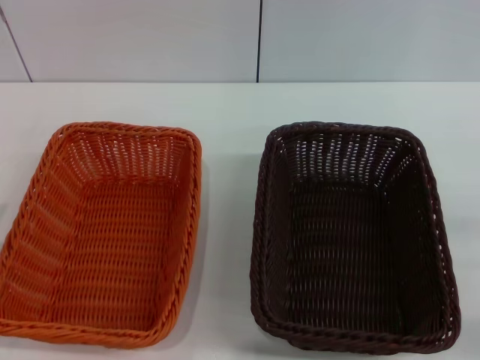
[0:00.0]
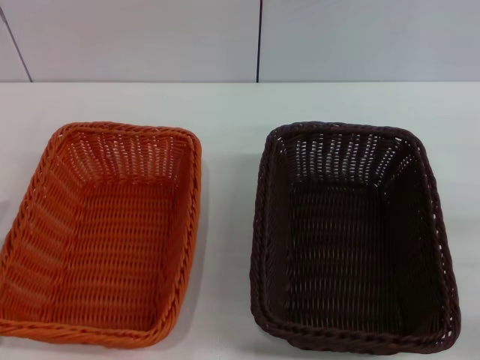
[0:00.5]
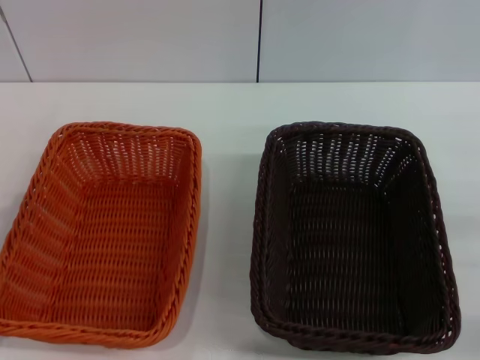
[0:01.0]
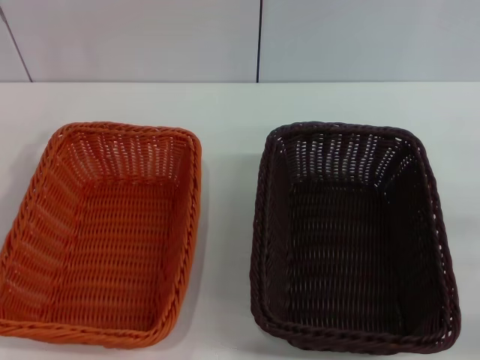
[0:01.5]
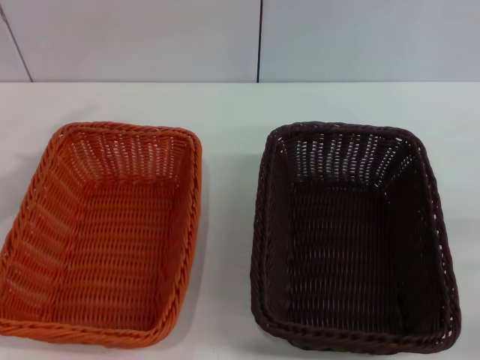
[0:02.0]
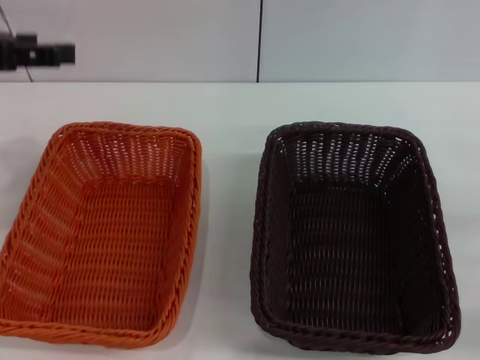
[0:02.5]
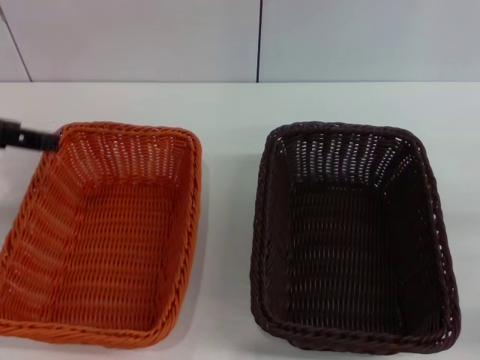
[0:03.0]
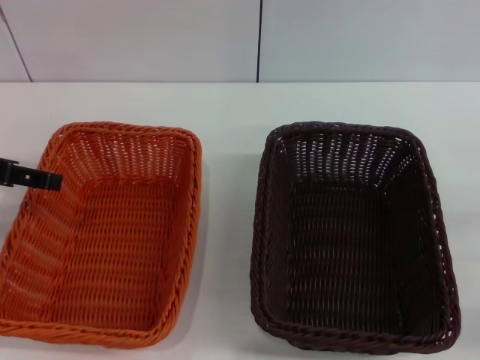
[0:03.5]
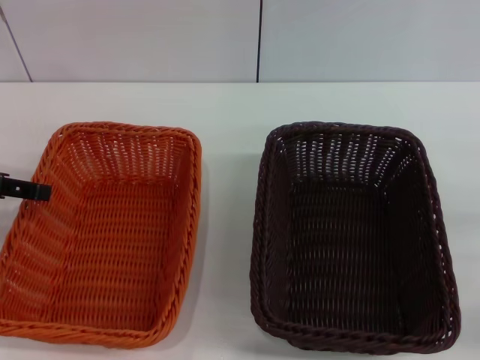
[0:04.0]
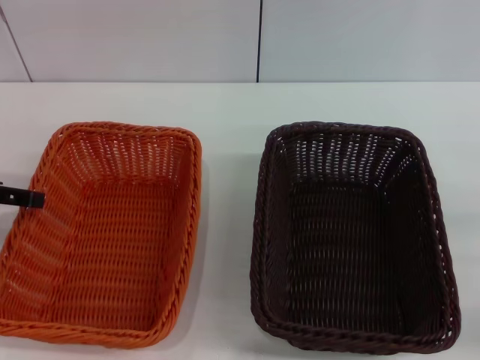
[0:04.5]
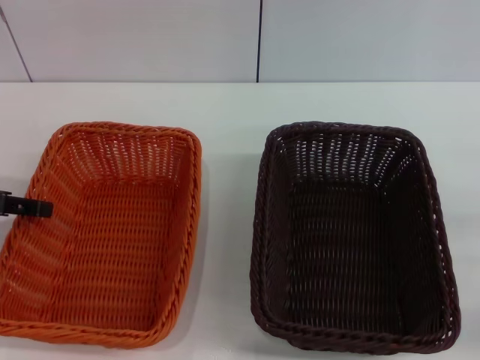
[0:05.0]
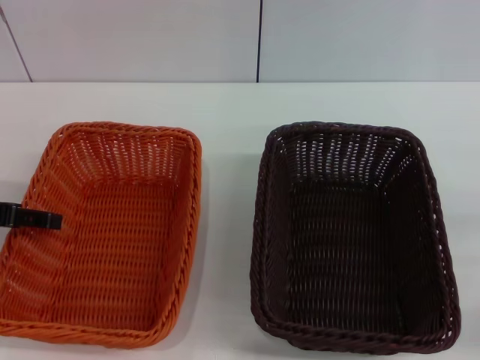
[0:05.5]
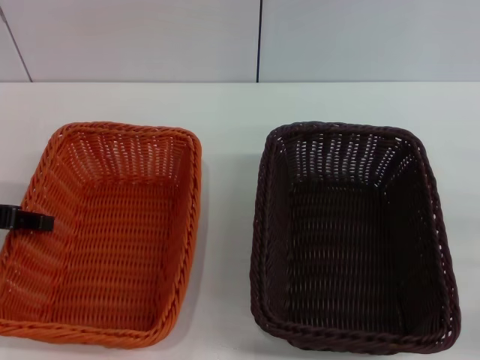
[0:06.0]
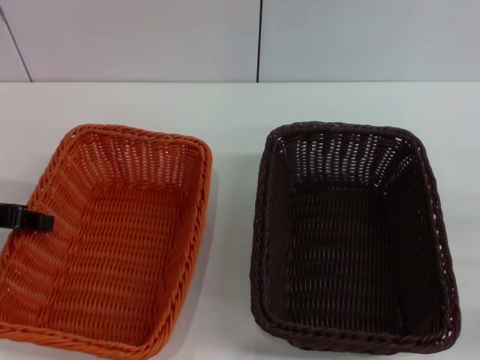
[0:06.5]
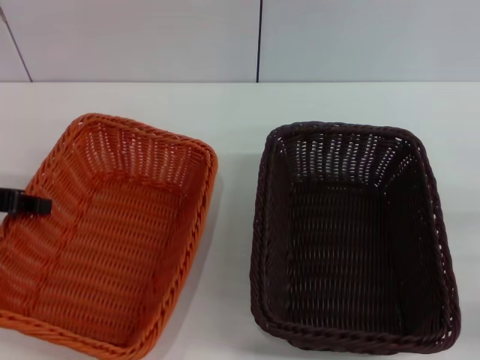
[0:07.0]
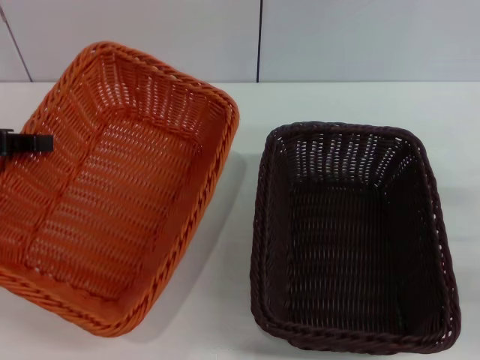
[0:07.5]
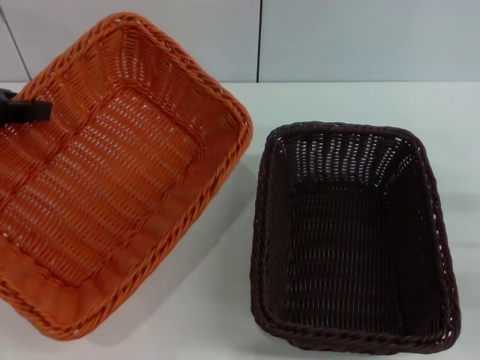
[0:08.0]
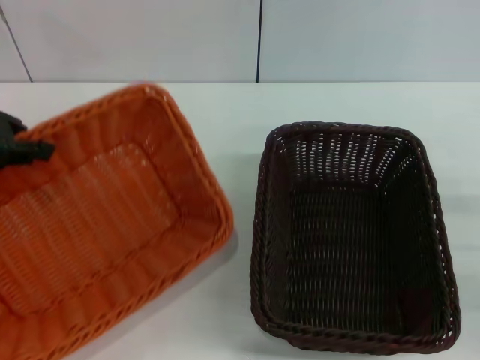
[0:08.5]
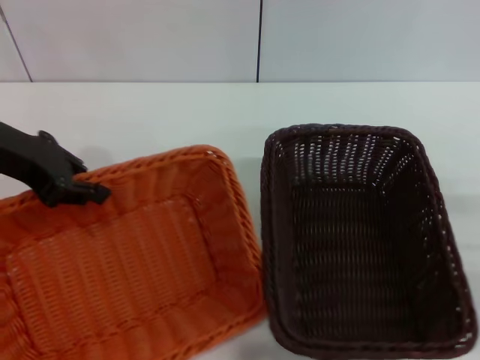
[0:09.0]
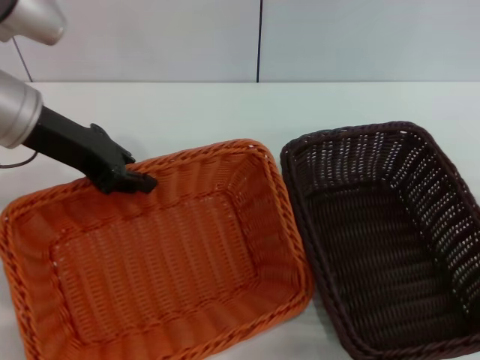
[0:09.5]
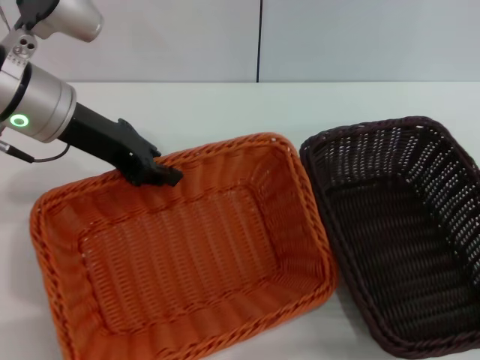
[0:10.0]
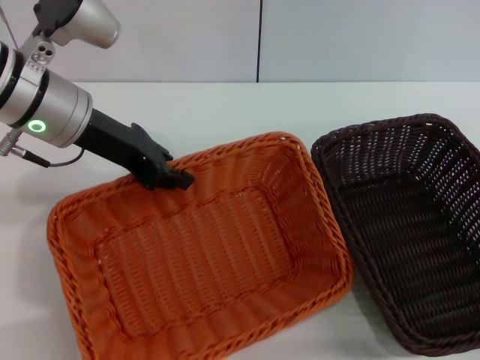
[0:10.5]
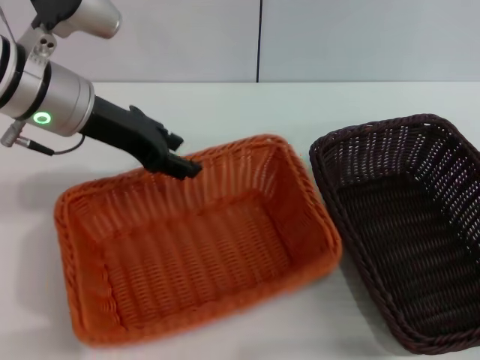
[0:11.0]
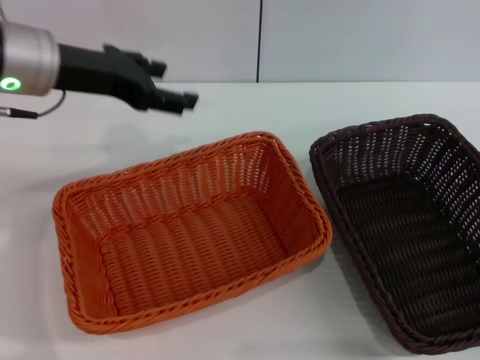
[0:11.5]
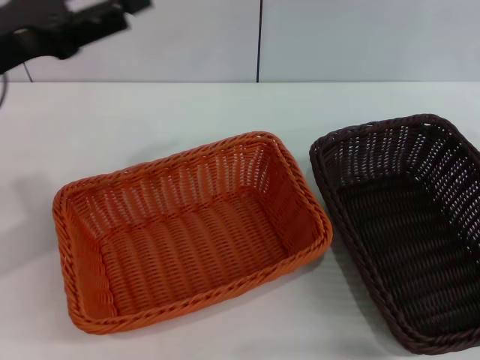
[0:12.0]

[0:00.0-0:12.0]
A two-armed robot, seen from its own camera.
Step, 0:00.0 to 0:07.0: Pick up the light basket with the left gripper.
Step, 0:08.0 to 0:11.0: Place the light basket in the center of view with the left gripper.
0:04.0 to 0:06.0: The grippers move only a little.
0:06.0 to 0:08.0: The left gripper goes approximately 10 cm upward, and closes.
0:08.0 to 0:10.0: The left gripper is displaced to the right and forward by approximately 15 cm.
0:10.0 to 0:12.0: The right gripper travels upward and forward by roughly 15 cm; the left gripper travels backward and to the left by roughly 10 cm, and opens up.

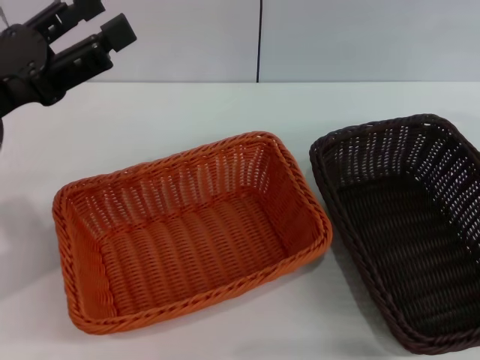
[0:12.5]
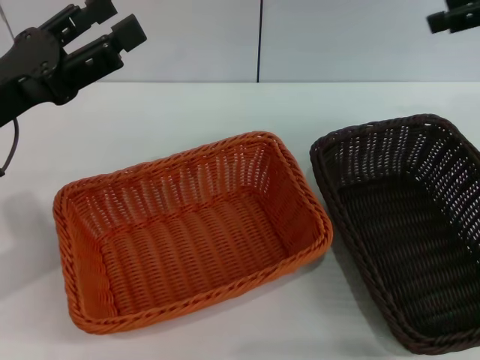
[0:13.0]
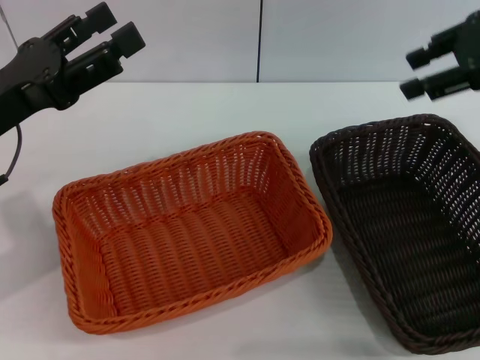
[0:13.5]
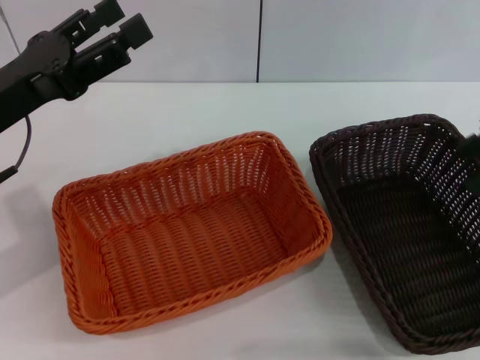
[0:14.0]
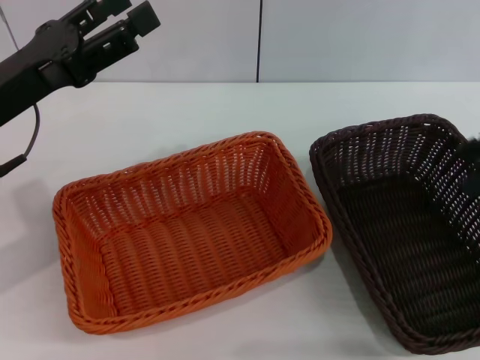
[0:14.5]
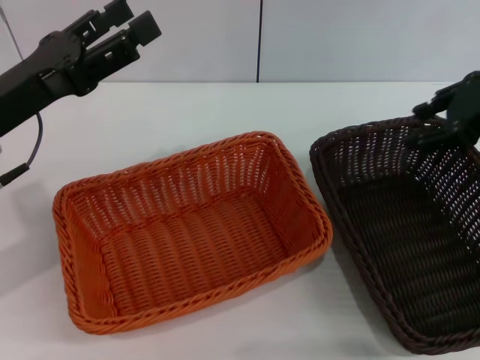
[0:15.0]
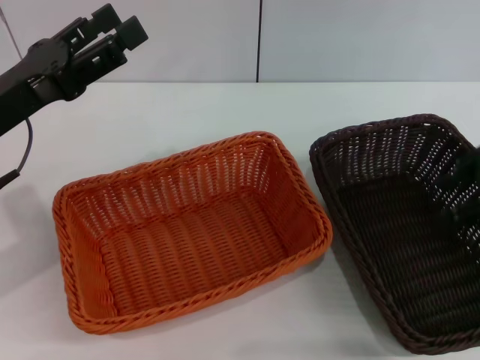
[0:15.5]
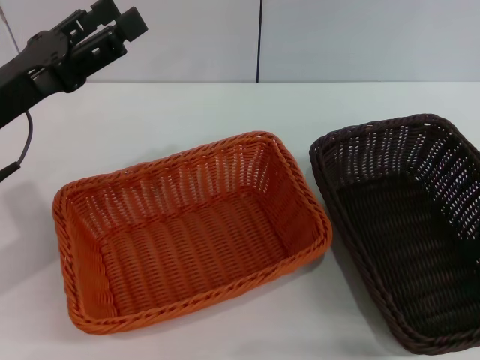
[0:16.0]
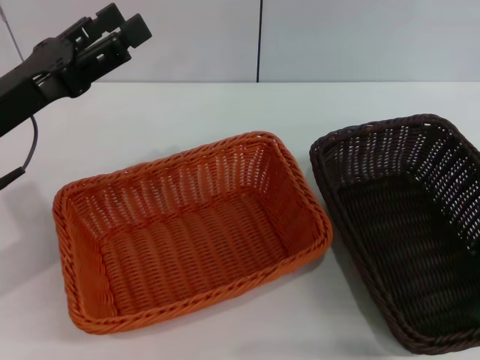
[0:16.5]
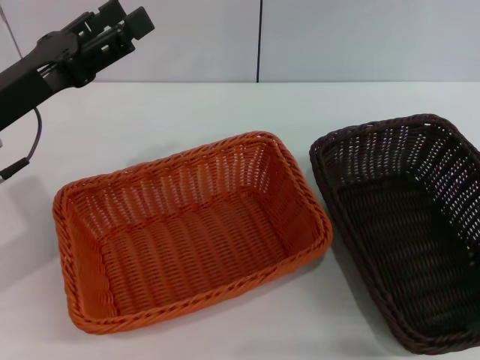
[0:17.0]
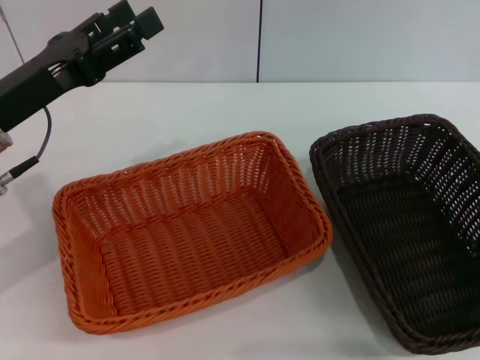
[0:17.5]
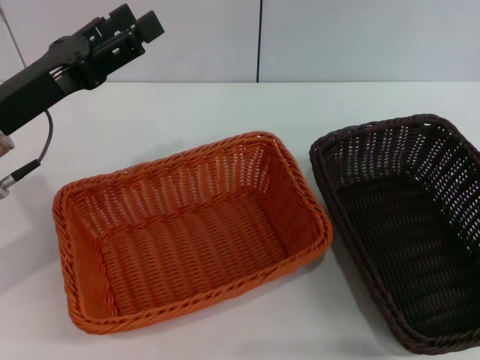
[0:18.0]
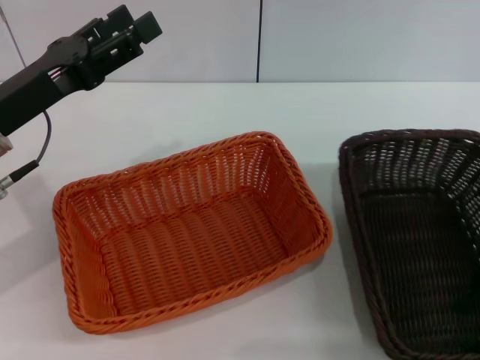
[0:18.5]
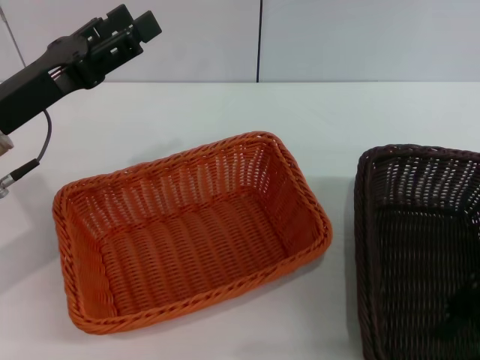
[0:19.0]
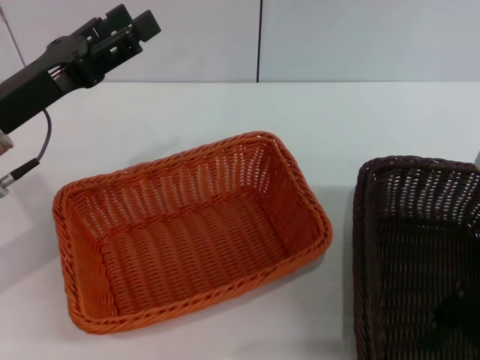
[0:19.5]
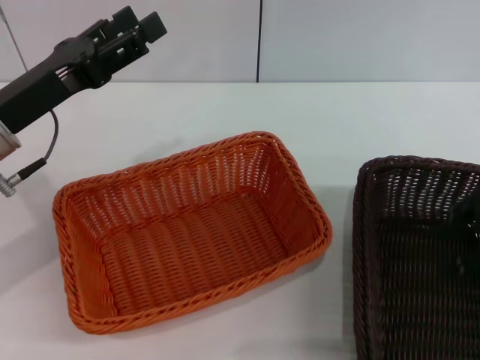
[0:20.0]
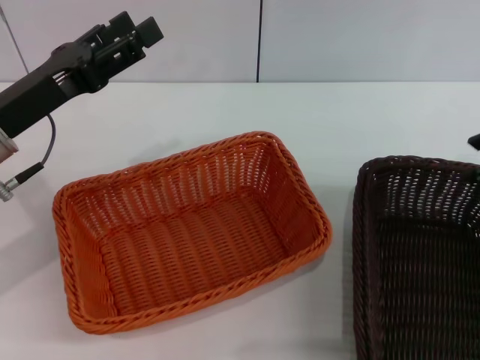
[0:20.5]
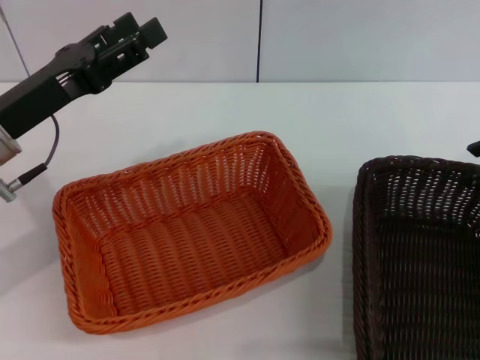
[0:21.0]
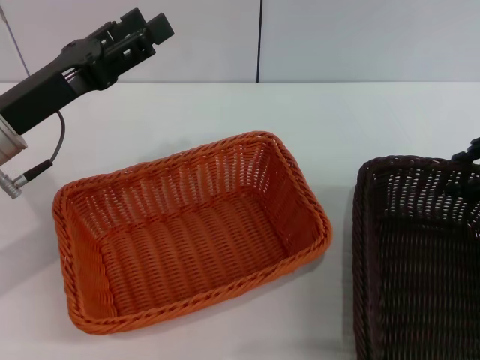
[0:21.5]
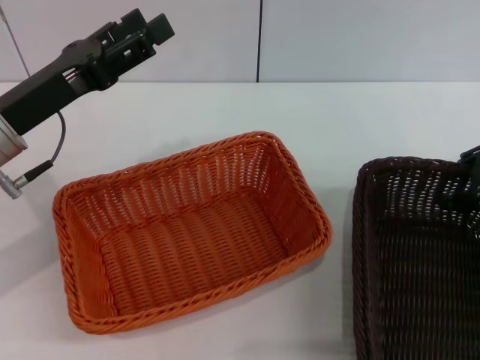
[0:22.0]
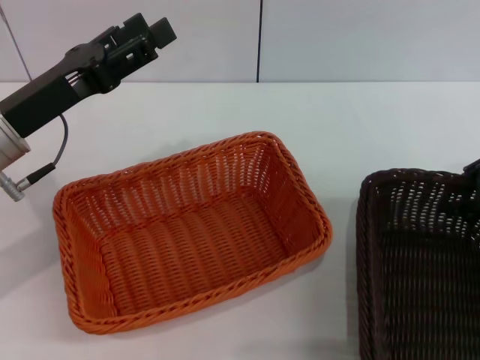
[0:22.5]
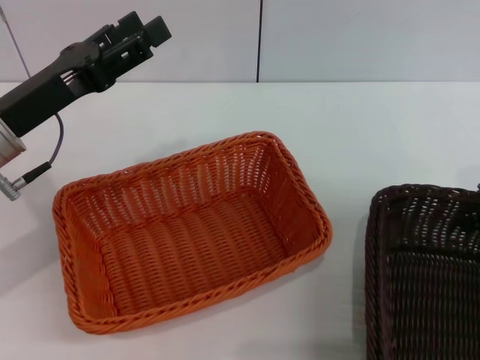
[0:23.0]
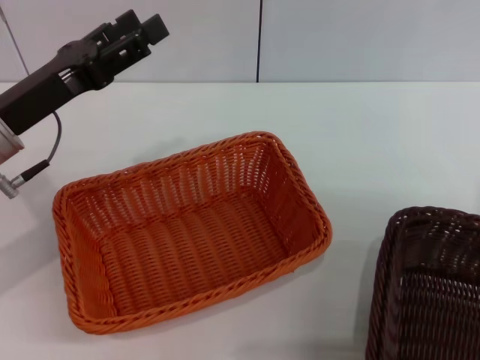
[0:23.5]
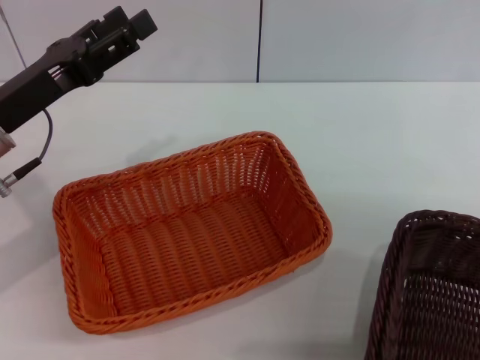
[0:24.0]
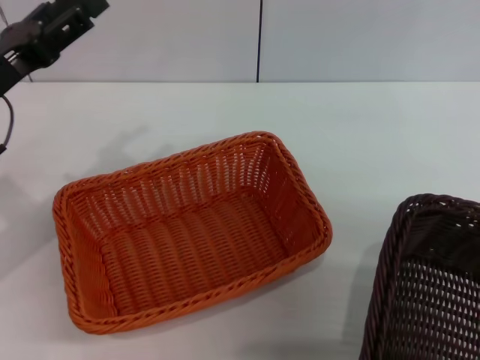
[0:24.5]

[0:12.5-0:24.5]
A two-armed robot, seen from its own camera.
0:16.5 to 0:18.5: The grippers stay close to where they were, moving slightly.
0:18.5 to 0:20.5: The right gripper shifts roughly 5 cm forward.
0:20.5 to 0:22.5: The right gripper is displaced downward by approximately 5 cm.
0:22.5 to 0:24.5: The right gripper travels backward and upward by approximately 10 cm, and closes.

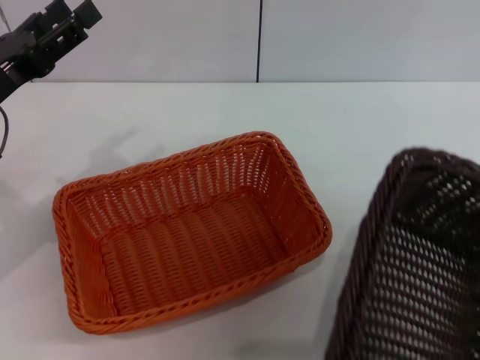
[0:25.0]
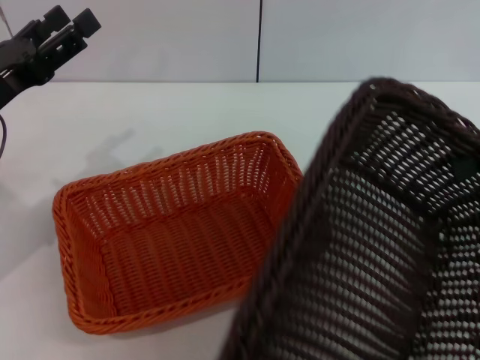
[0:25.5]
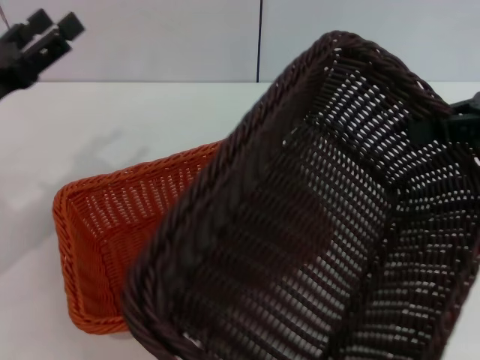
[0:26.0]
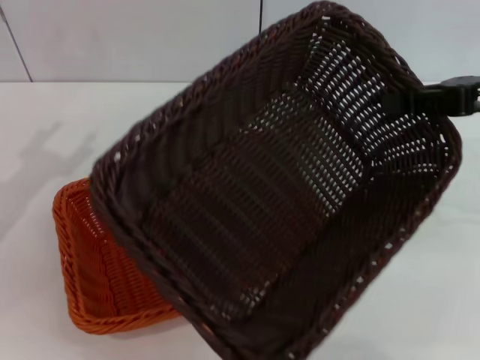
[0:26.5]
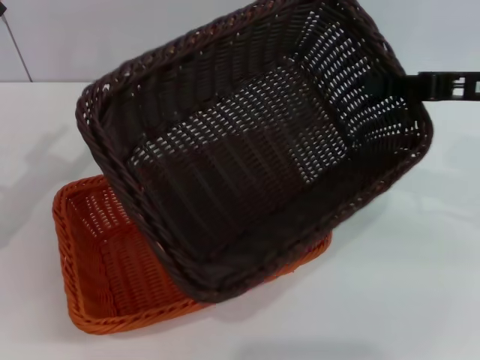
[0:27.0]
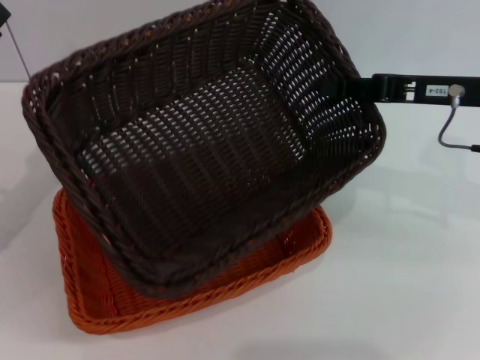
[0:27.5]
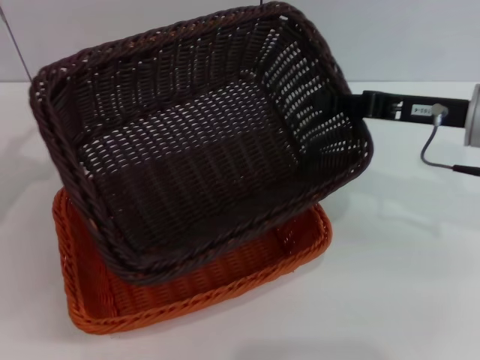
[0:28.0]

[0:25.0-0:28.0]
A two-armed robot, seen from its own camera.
0:25.0 to 0:26.5: Both grippers move to the left, approximately 5 cm.
0:26.5 to 0:28.0: The right gripper is displaced downward and to the left by approximately 10 cm.
